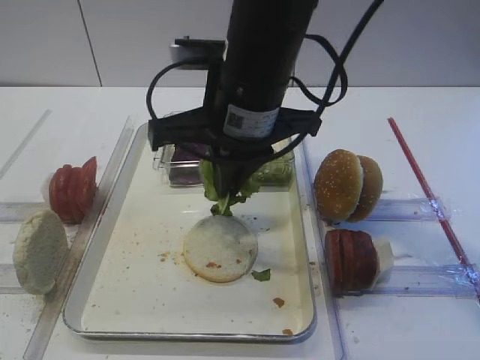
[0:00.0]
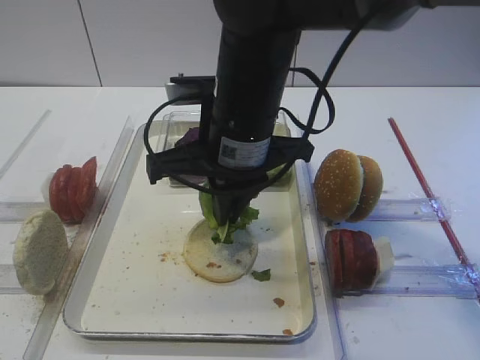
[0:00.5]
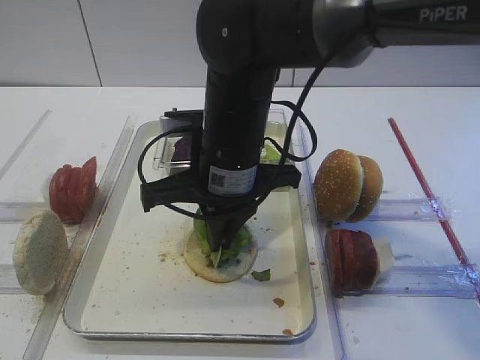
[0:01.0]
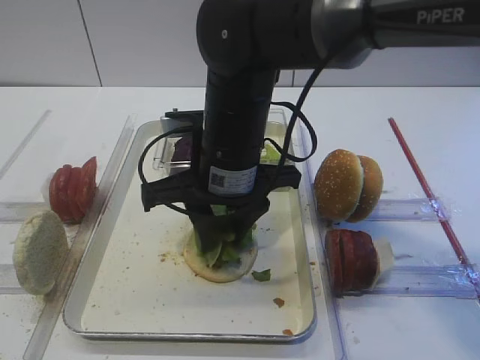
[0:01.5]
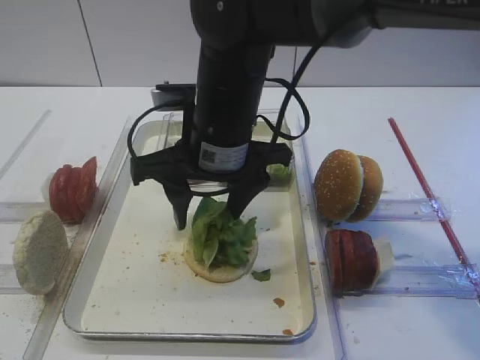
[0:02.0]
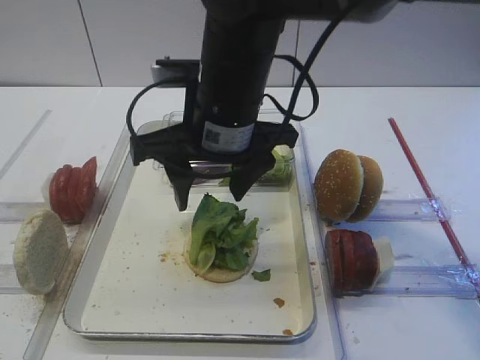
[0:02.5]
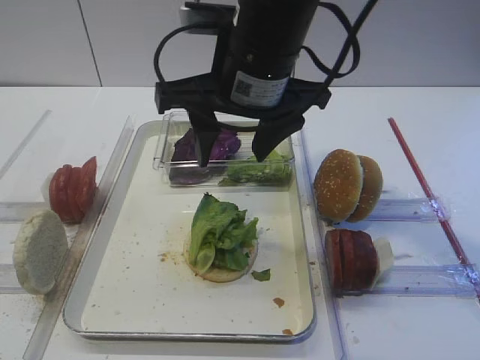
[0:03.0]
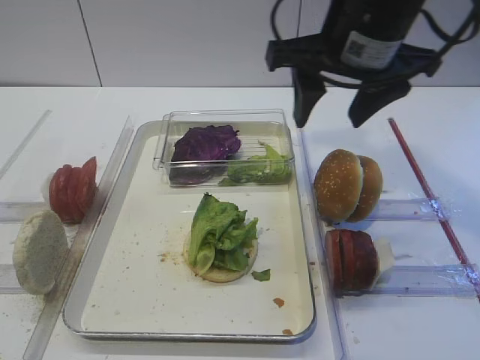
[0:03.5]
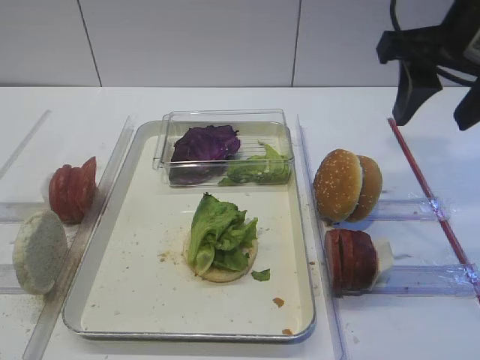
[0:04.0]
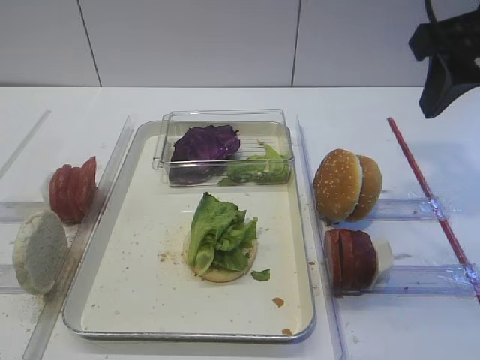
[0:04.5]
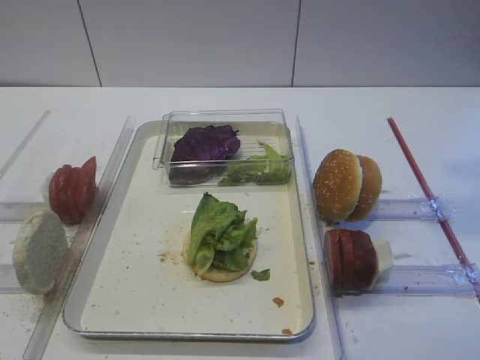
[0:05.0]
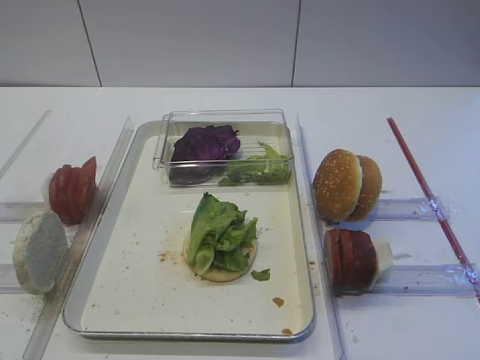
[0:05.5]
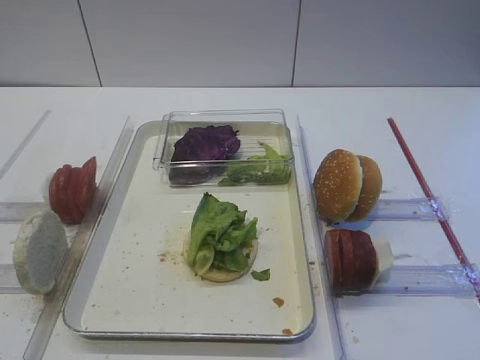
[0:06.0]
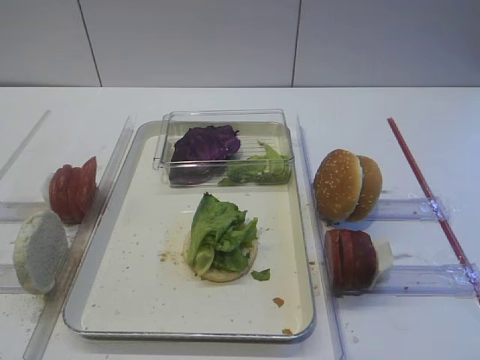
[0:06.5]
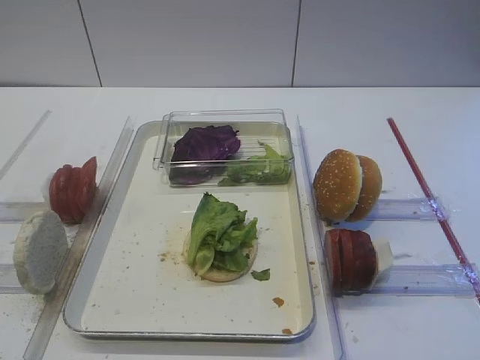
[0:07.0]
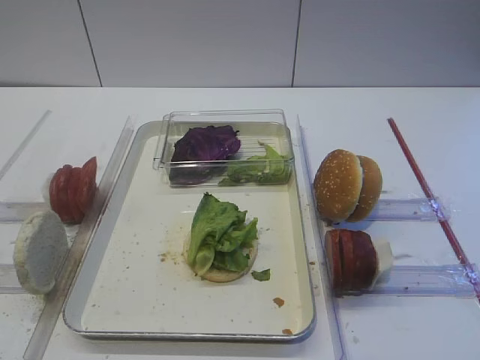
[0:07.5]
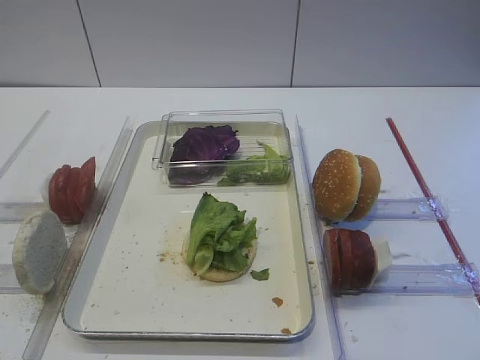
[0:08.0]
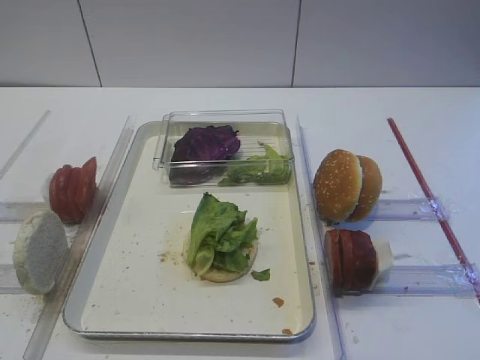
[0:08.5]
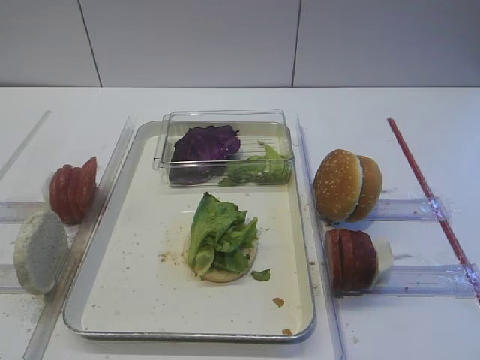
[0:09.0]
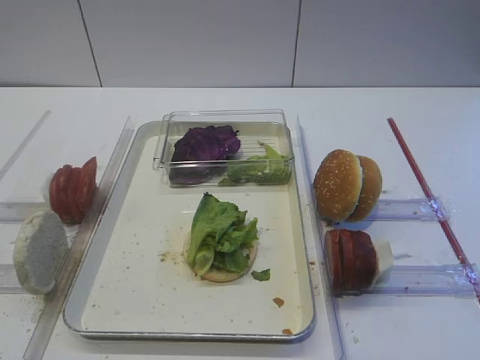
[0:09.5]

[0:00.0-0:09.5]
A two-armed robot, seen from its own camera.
Step, 0:00.0 to 0:02.0: Place the lettuce leaf on the bread slice with the right gripper.
0:00.0 to 0:02.0: The right gripper ends up about 5 cm from where it was, and opens.
0:02.0 to 0:04.0: The right gripper shifts approximately 25 cm to the right and upward.
0:04.0 to 0:05.5: The right gripper shifts approximately 20 cm backward and upward.

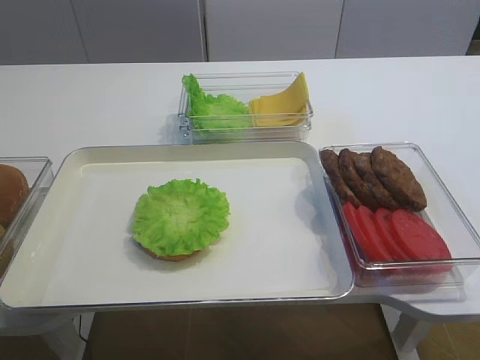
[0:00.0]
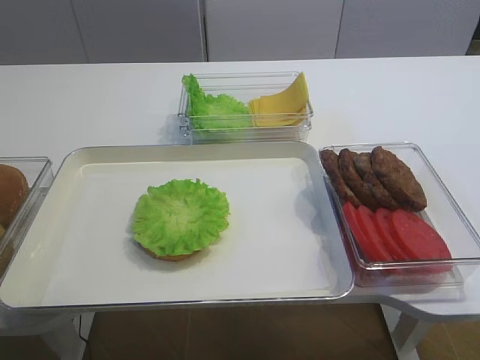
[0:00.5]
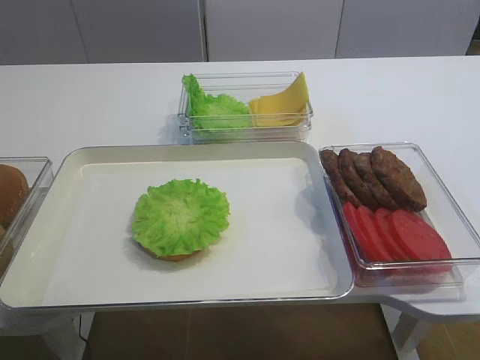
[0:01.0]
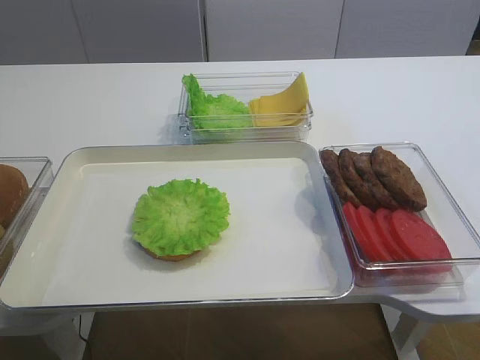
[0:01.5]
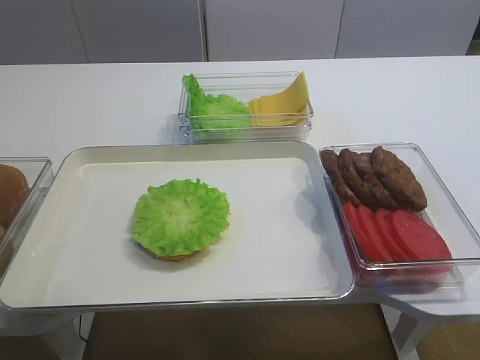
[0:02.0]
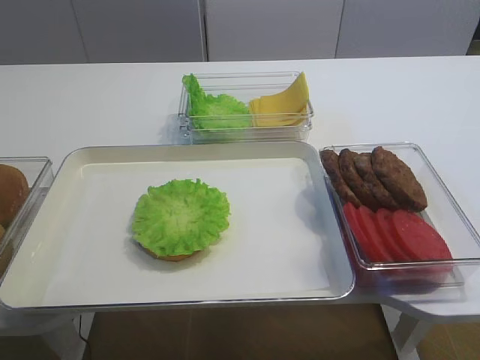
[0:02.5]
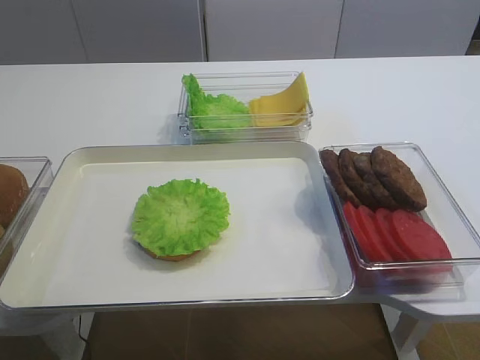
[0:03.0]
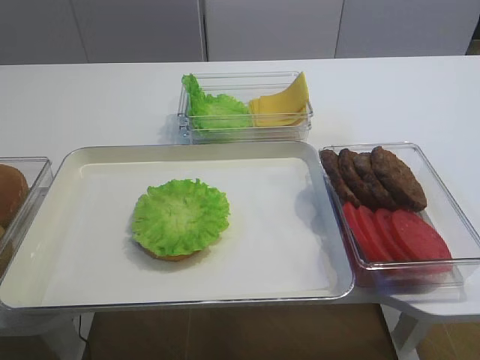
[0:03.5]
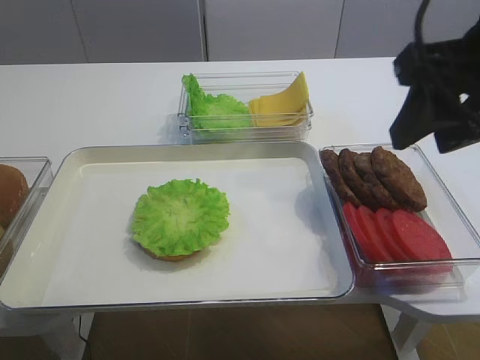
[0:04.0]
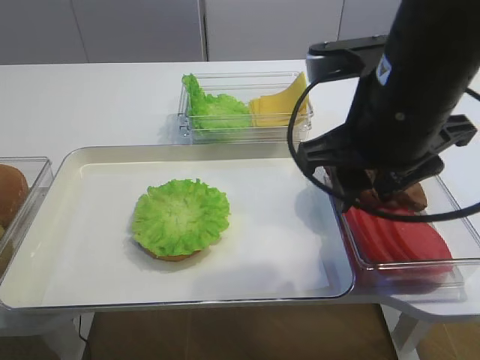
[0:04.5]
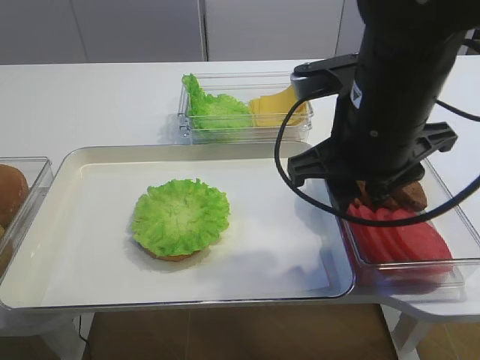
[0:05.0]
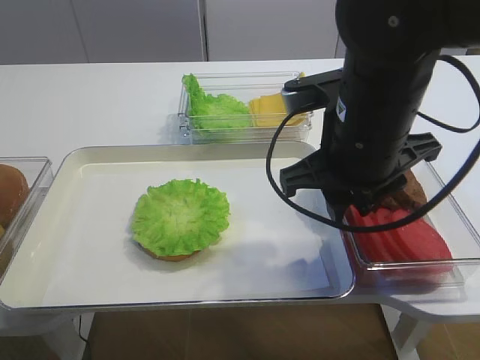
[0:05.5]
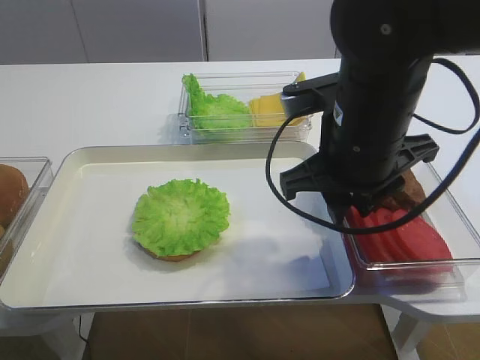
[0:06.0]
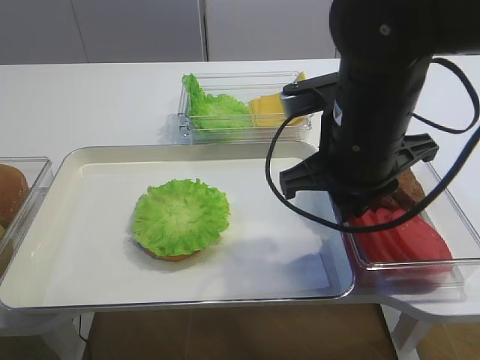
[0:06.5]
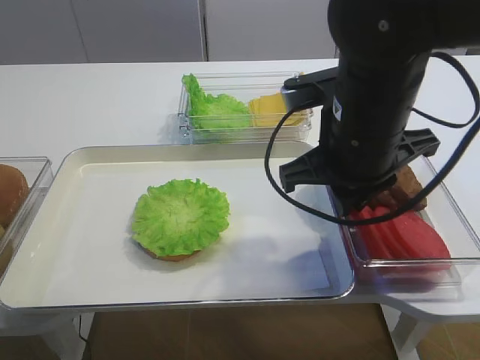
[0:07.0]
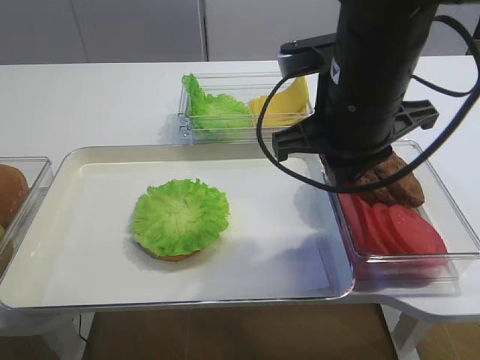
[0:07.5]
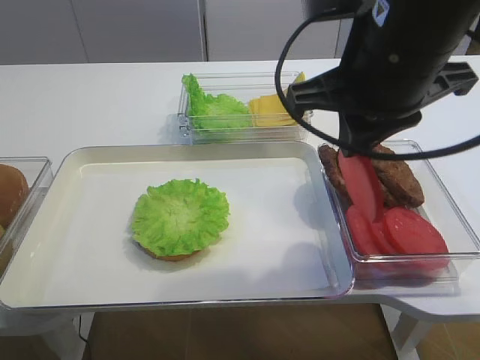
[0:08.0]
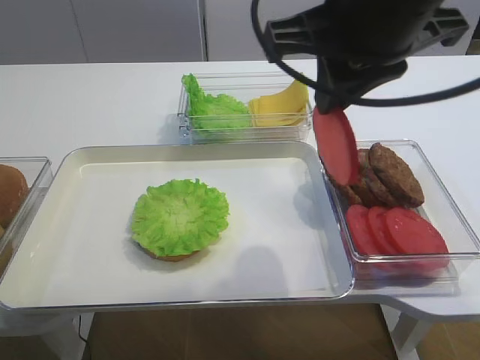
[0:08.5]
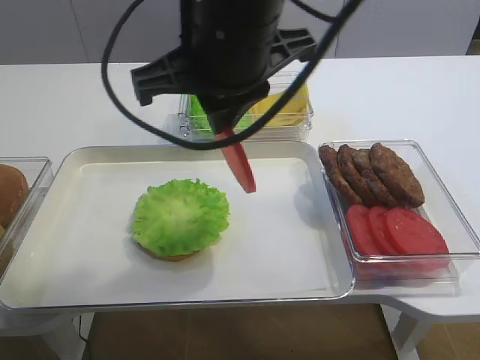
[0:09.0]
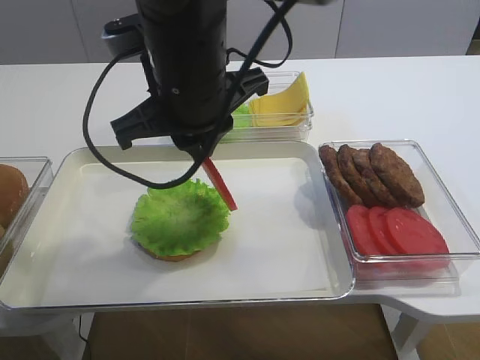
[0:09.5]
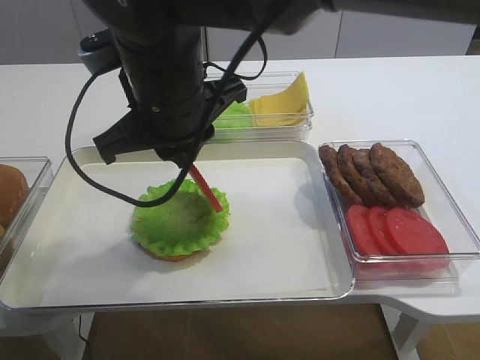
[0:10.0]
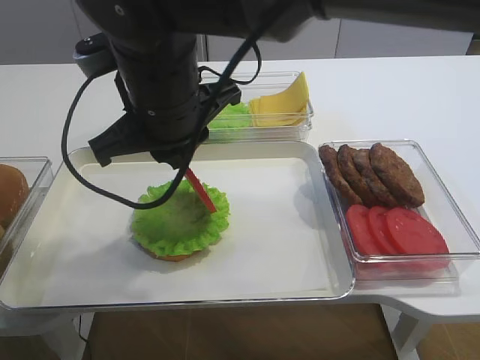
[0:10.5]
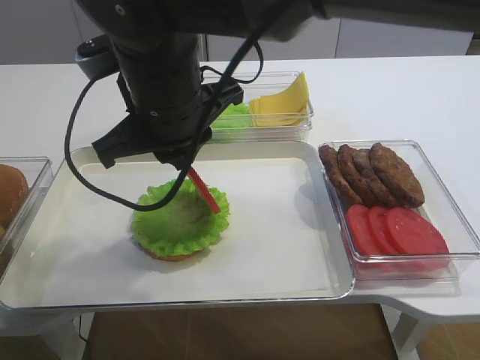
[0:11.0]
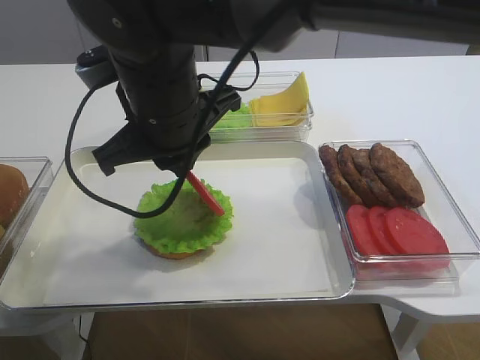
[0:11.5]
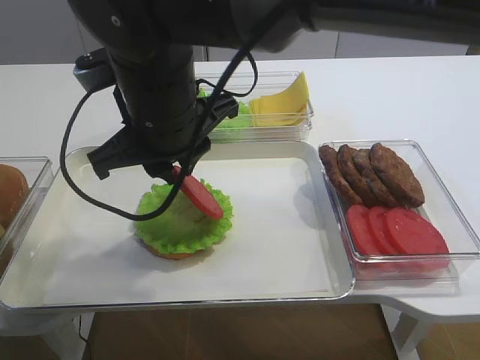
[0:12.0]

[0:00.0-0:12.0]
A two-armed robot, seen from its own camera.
Step, 0:00.0 to 0:07.5: Pick up the tomato slice with the right gripper.
0:02.0 to 0:04.0: The right gripper shifts approximately 20 cm forward.
0:04.0 to 0:06.0: The right gripper travels downward and to the left by some 15 cm.
0:06.0 to 0:08.0: The right gripper travels upward by about 5 cm, and closes up.
0:08.0 to 0:10.0: The right gripper is displaced to the left by roughly 15 cm.
0:10.0 to 0:12.0: The two grippers keep their place.

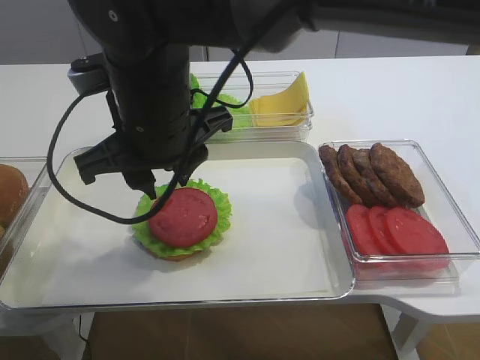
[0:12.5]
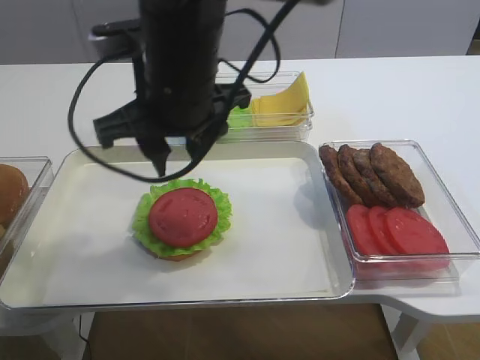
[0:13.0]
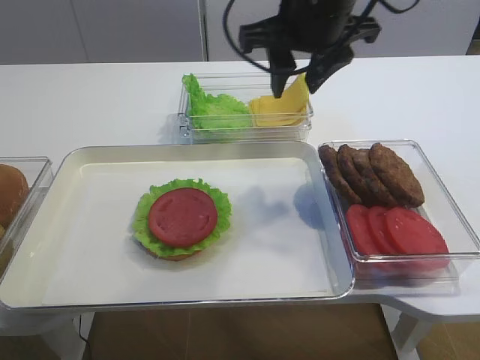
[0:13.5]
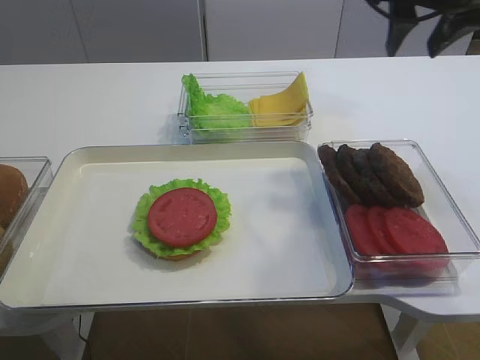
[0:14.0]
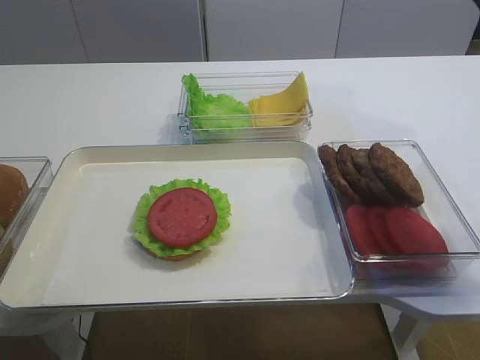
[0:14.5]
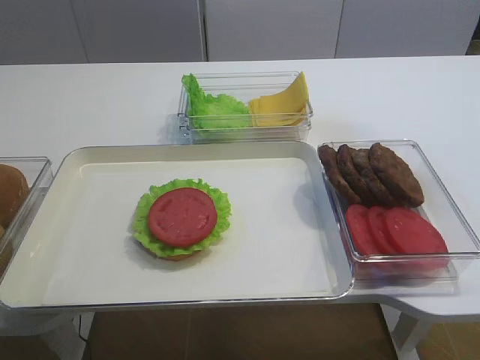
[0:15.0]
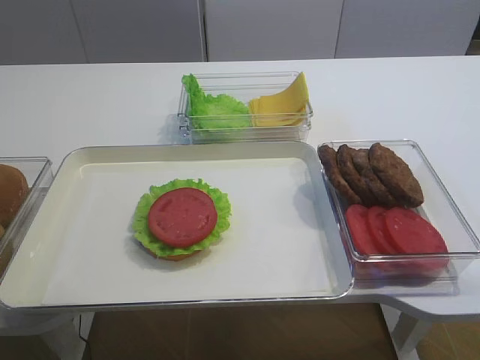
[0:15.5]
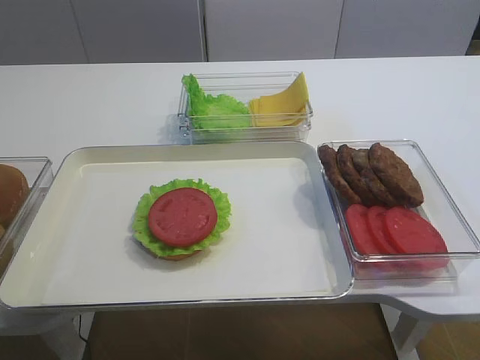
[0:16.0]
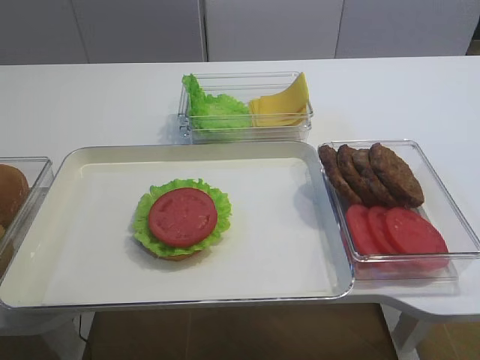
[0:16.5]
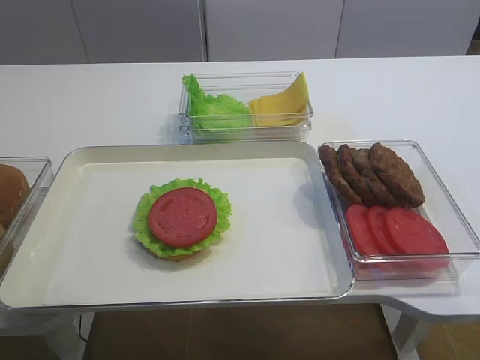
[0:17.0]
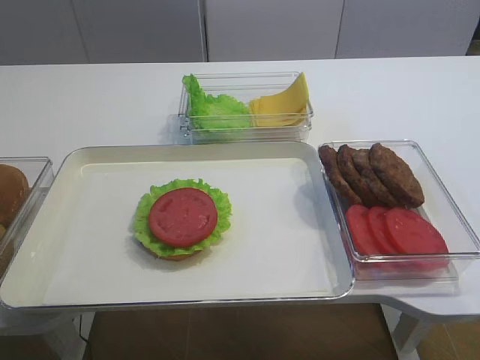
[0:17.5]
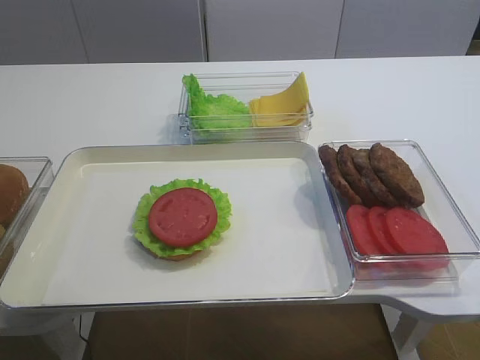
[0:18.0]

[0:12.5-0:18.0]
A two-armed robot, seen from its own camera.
0:12.5 to 0:14.5: The right gripper shifts approximately 35 cm to the right, and opens up.
0:14.5 to 0:16.0: The right gripper goes roughly 35 cm backward.
